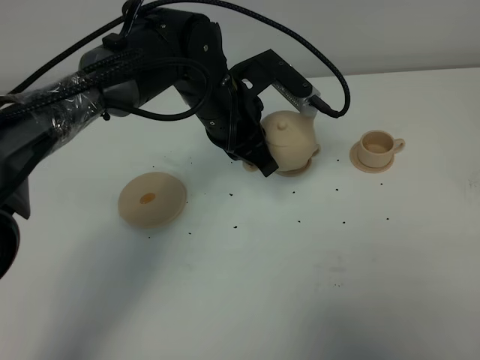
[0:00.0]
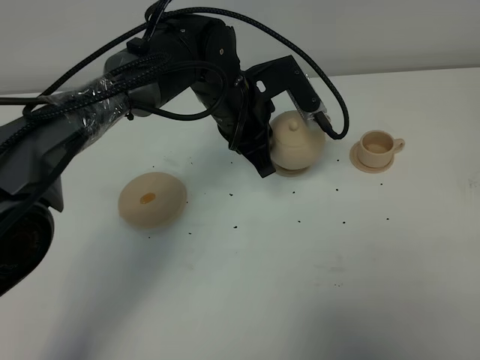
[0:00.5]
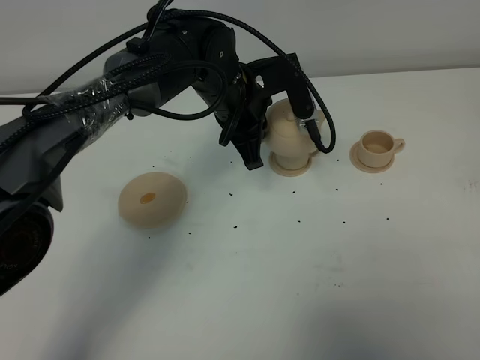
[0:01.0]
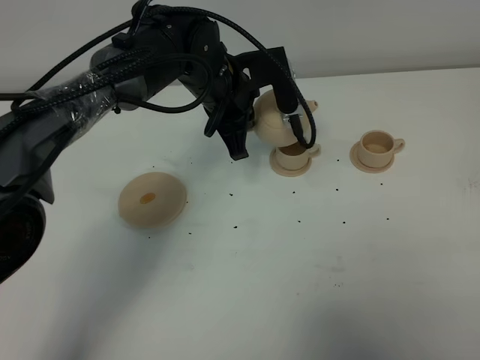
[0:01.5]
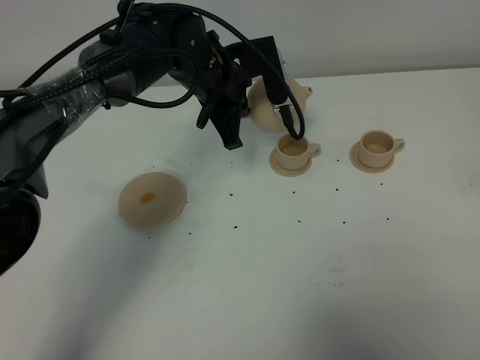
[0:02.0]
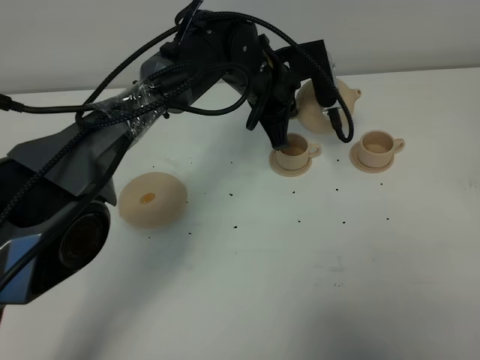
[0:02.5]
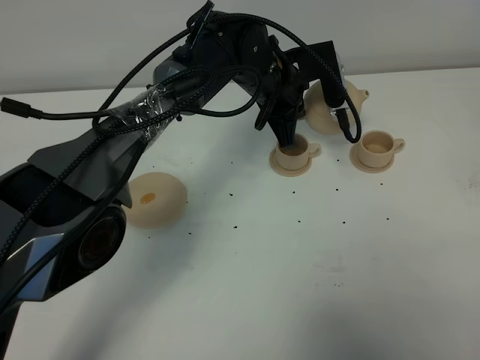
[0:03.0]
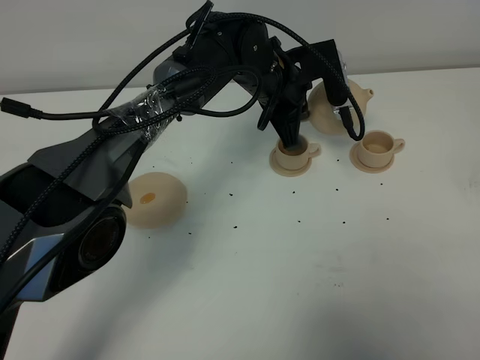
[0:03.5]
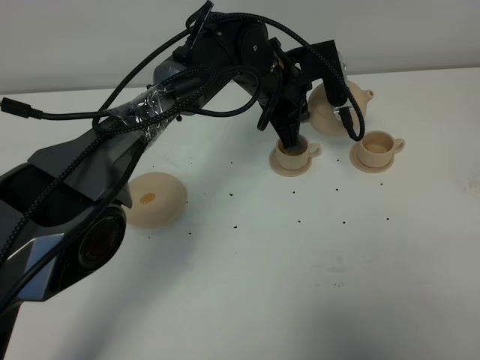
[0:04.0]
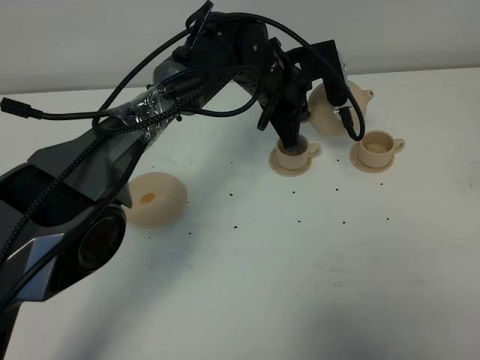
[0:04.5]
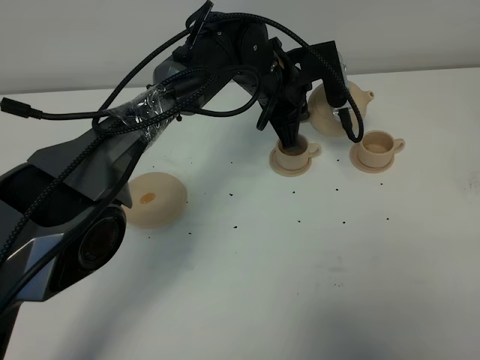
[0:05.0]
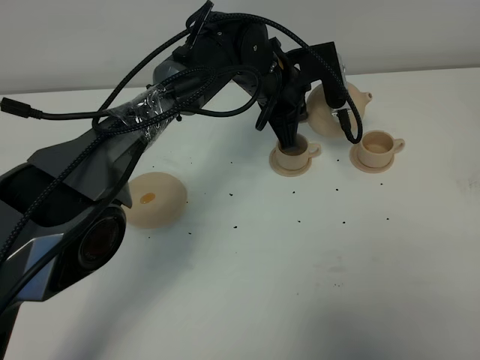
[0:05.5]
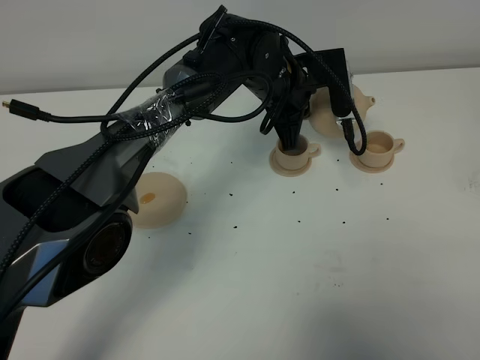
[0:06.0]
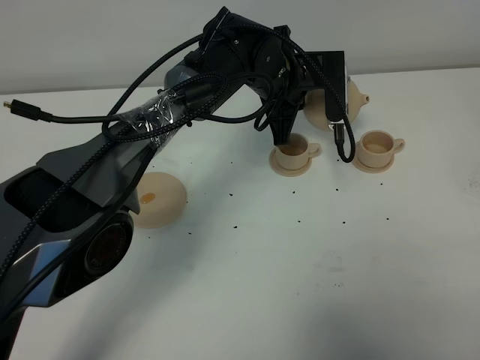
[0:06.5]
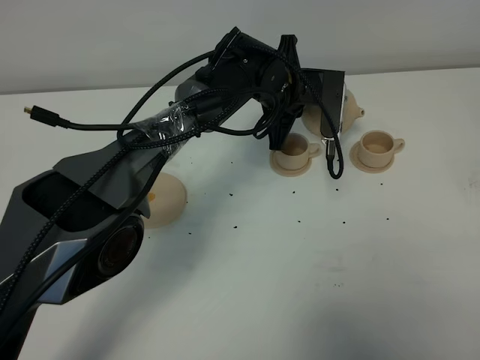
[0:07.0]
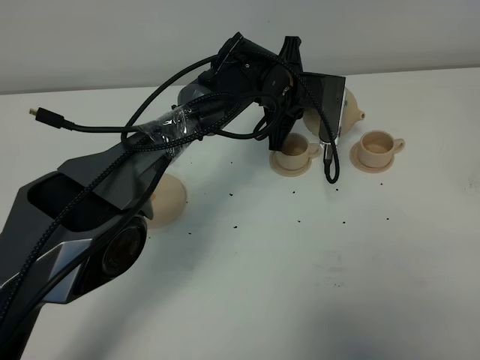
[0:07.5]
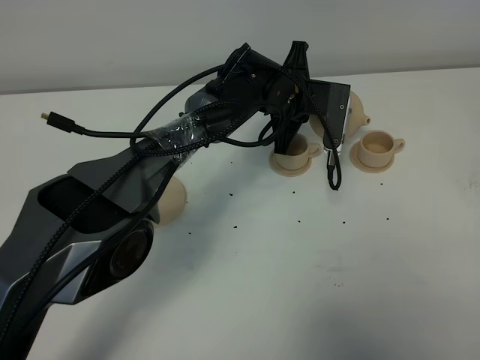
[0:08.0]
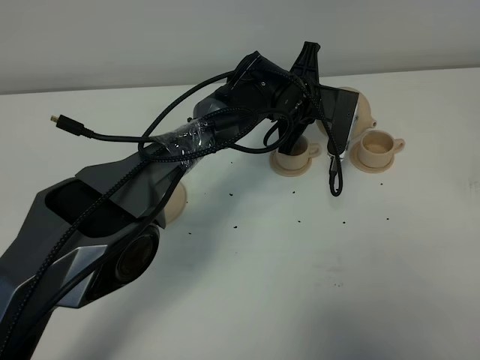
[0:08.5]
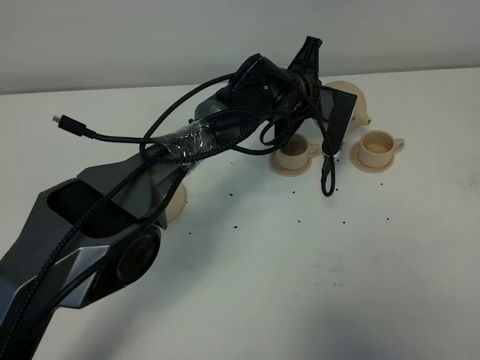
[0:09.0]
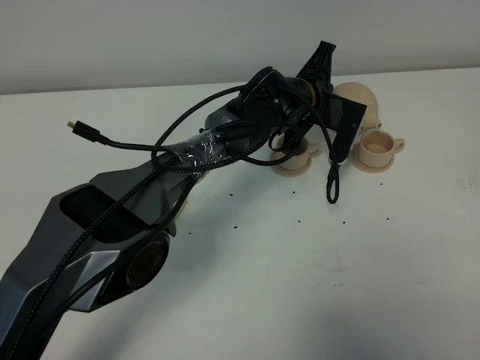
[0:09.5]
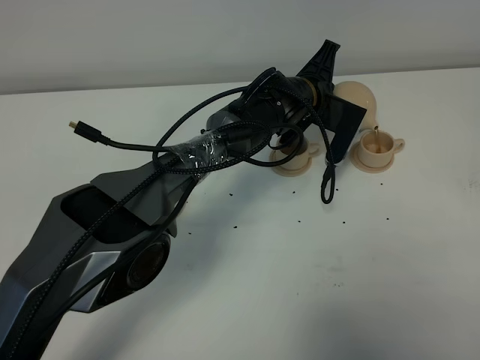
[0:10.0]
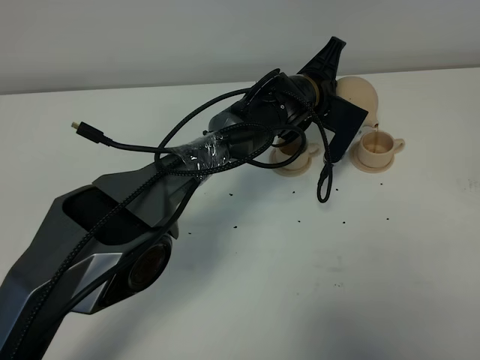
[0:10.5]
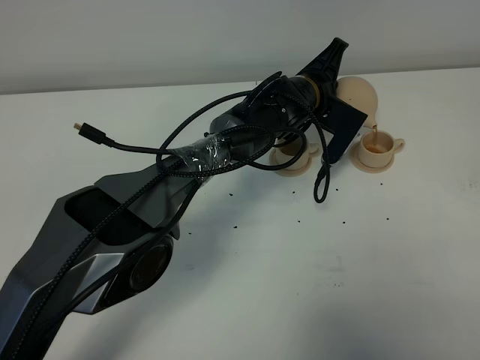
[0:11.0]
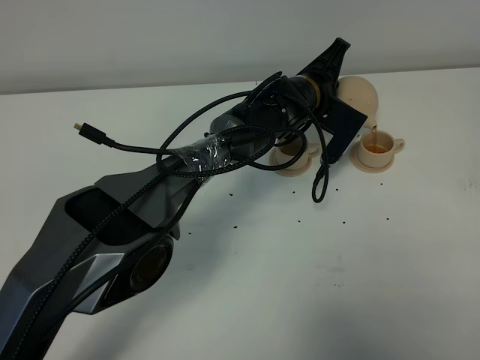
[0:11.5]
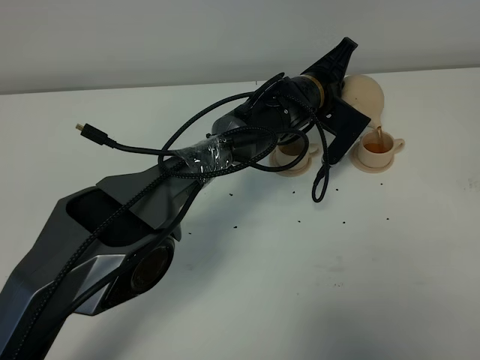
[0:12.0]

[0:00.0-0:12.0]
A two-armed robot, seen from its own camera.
Task of the whole recording: grasp the brown teapot and pour the tea into the two brown teacups one by one, put the brown teapot back in its original place.
0:00.0 to 0:02.0: The left gripper moves forward, roughly 5 cm.
0:02.0 to 0:04.0: The left gripper moves to the right, roughly 5 cm.
0:04.0 to 0:06.0: The grippers stay close to where they were, moving slightly.
0:10.0 to 0:12.0: There are only small adjustments of the grippers.

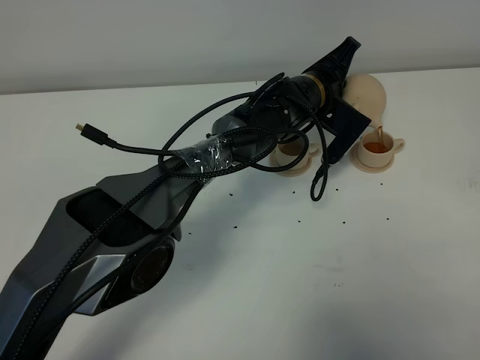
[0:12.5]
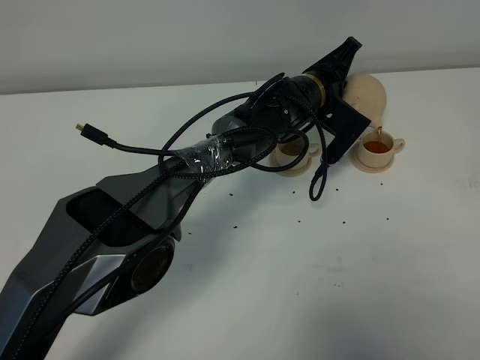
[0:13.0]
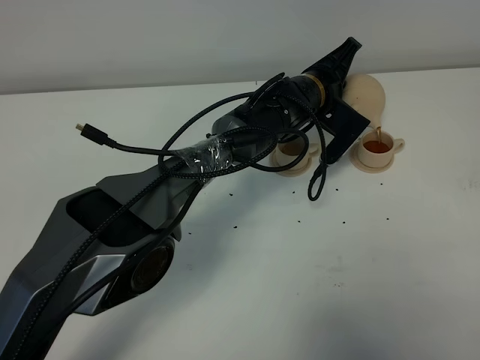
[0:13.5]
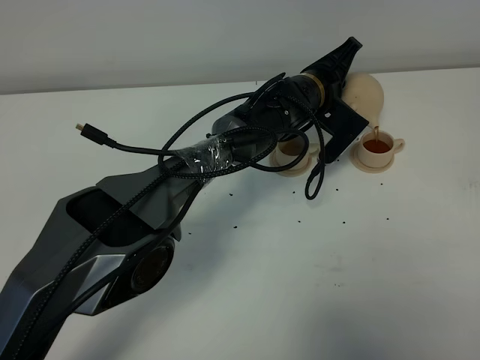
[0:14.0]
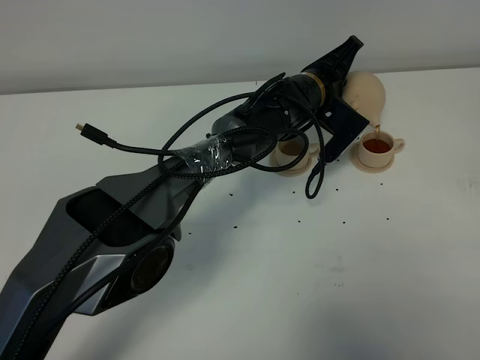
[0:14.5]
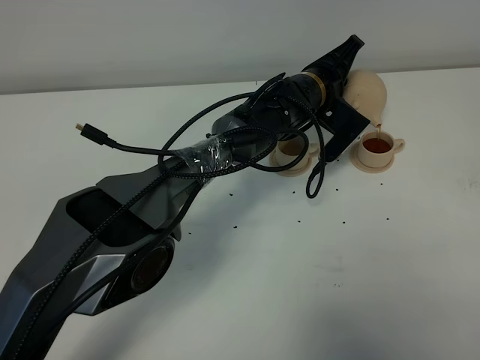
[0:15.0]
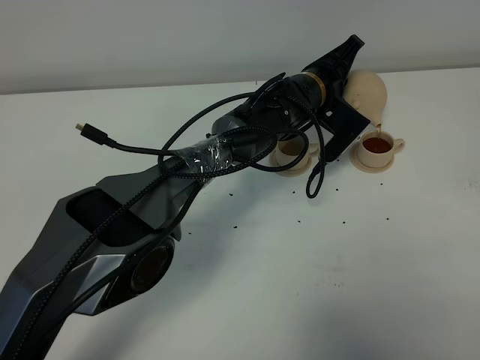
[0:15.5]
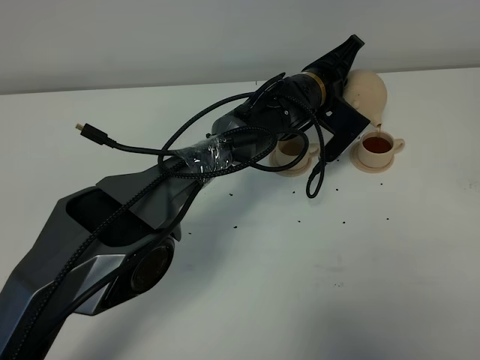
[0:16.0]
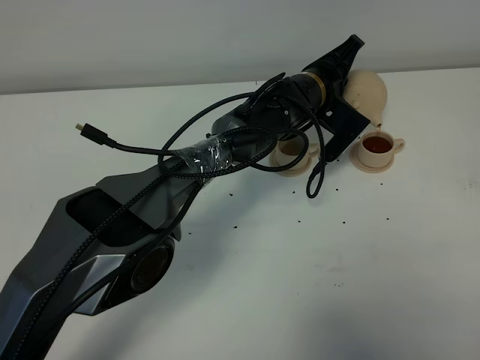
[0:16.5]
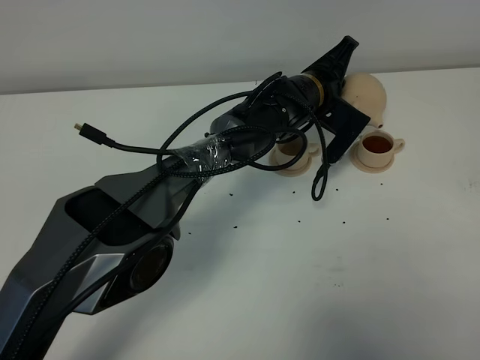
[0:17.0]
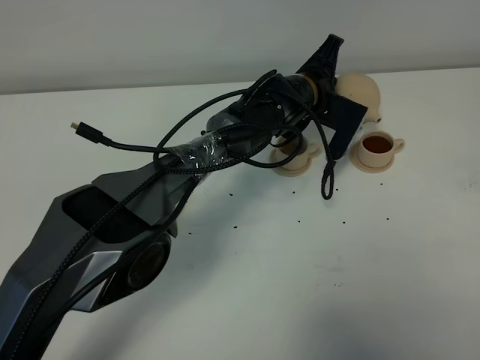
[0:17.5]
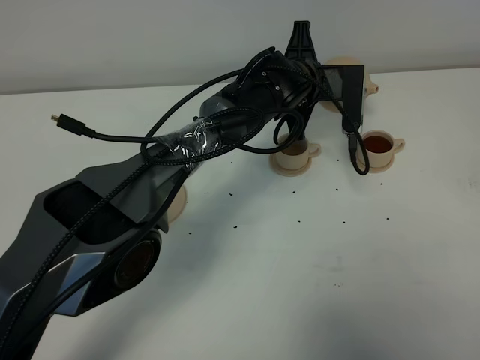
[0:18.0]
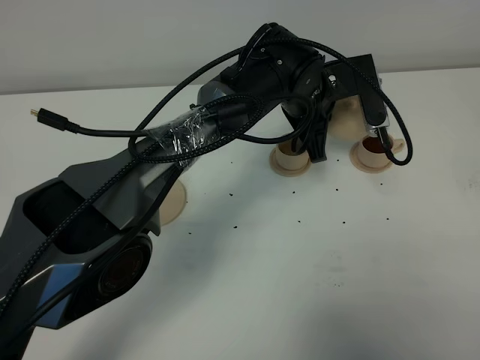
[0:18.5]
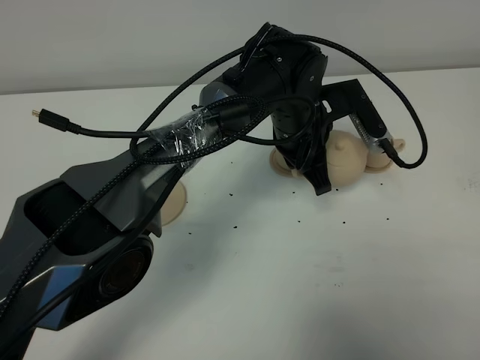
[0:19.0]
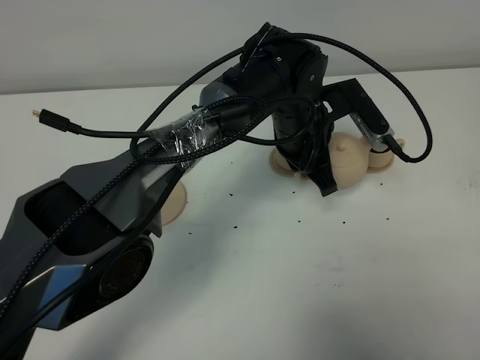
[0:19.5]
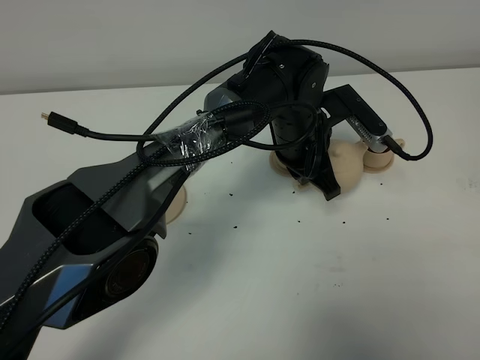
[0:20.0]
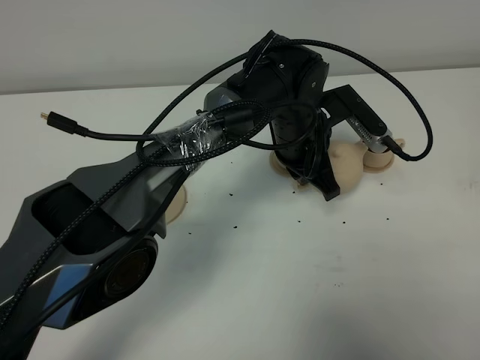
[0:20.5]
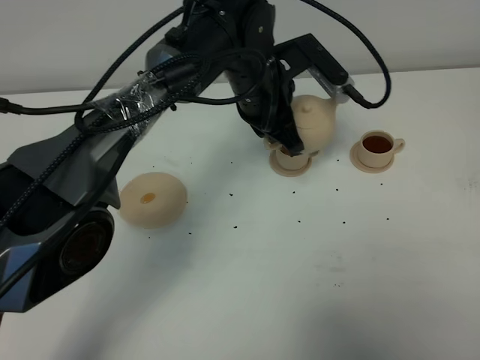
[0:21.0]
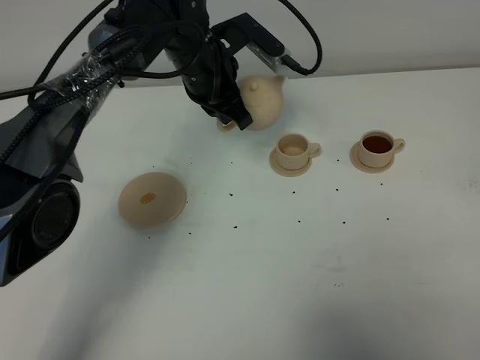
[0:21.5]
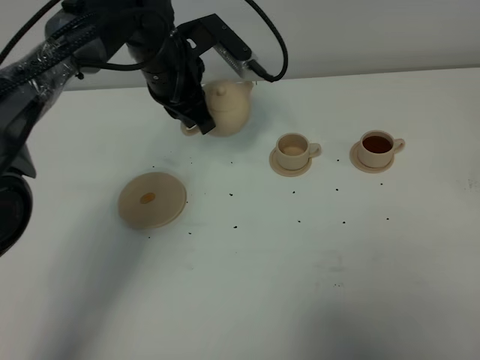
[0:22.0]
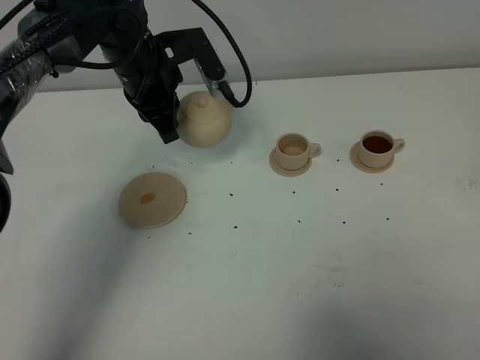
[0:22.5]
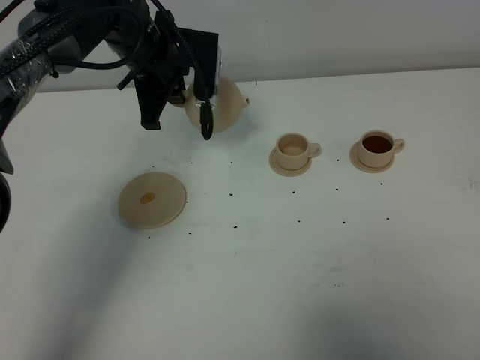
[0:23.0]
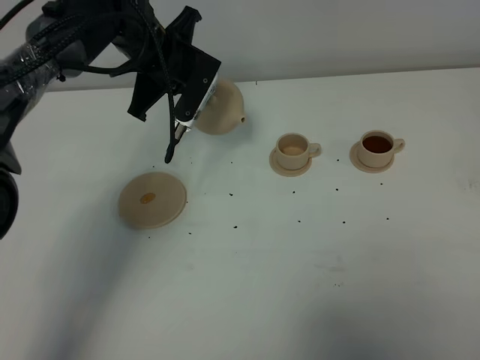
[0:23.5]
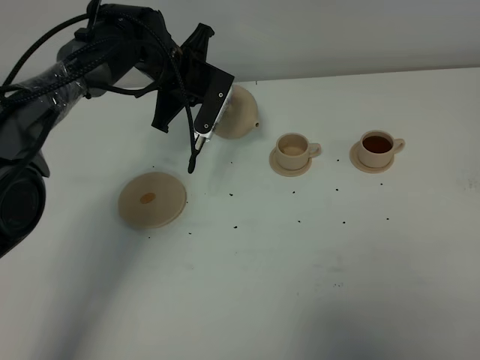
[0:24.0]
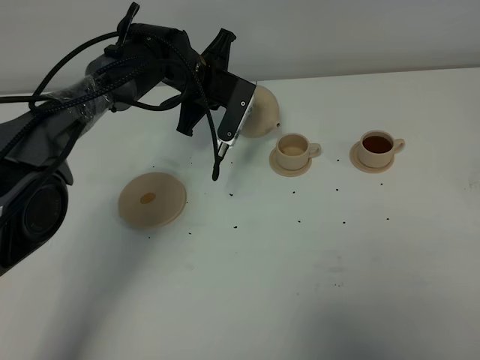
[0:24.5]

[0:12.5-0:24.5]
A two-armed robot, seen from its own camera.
Task of the whole recording: grasp the brown teapot and pour the tea into the two brown teacups one by one, put the brown teapot back in its original place.
Step, 0:12.5 to 0:17.5: Pour tea into the teacup with the left gripper.
0:12.5 to 0:16.5: Neither gripper changes place.
0:16.5 to 0:18.5: The left gripper ends up about 5 cm from where it was.
0:20.5 to 0:22.5: The left gripper moves to the left, about 20 cm.
0:22.5 to 0:24.5: The left gripper shifts approximately 10 cm downward and to the right.

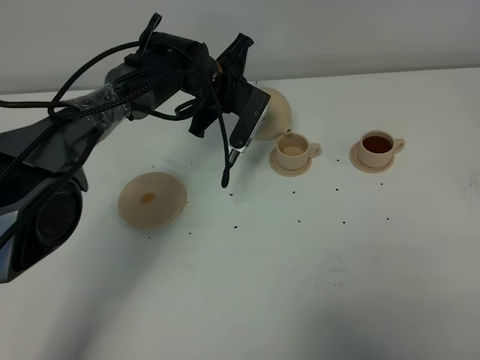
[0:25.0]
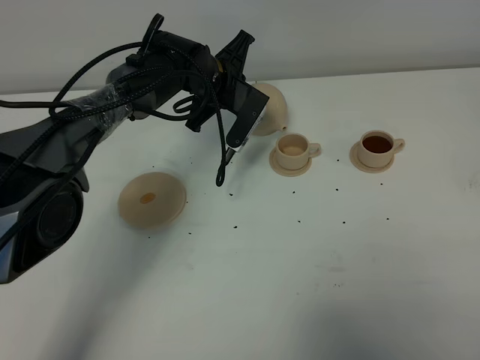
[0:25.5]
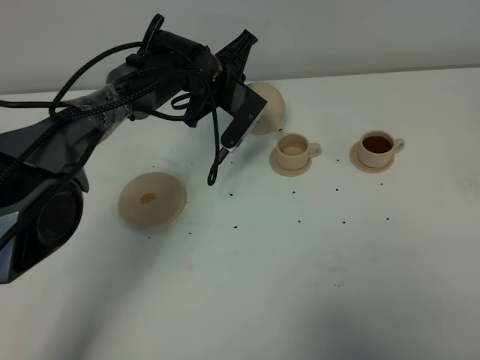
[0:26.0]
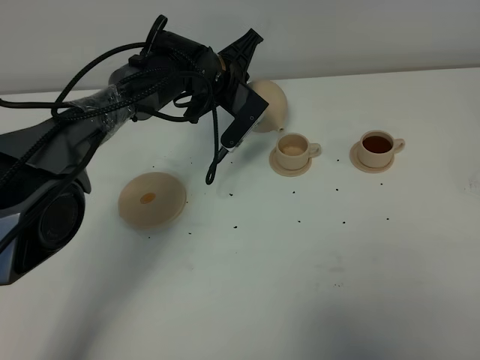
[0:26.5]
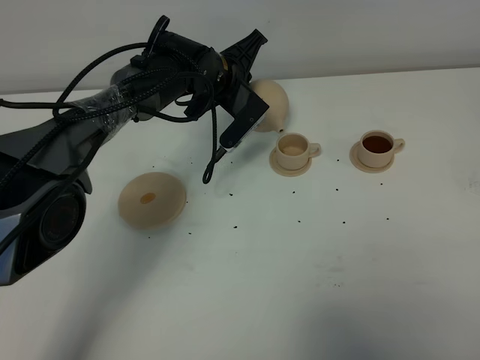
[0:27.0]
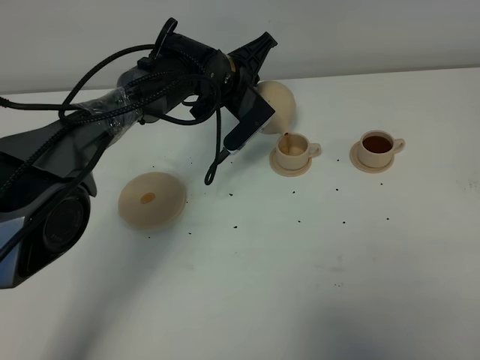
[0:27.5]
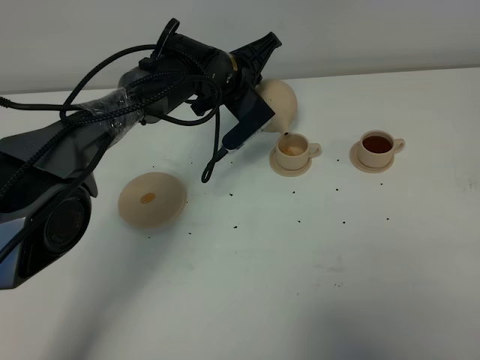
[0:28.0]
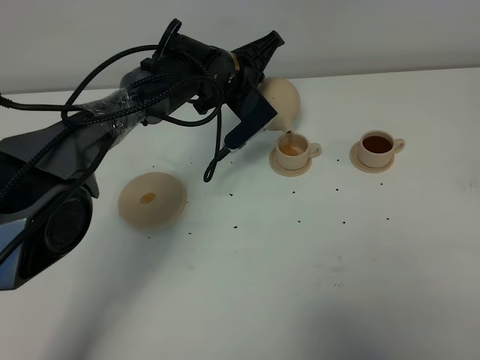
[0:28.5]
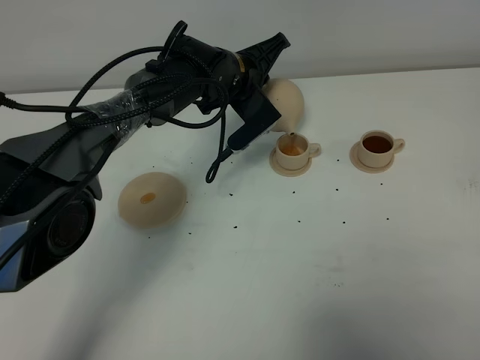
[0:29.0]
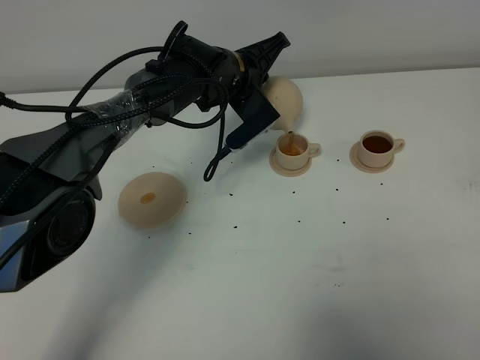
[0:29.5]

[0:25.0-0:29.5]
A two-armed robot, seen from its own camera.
Task of the whole recording: grasp the brown teapot and pour the tea into the two brown teacups one by one, put the brown teapot back in its original place.
0:25.0 to 0:27.0: The grippers make only small movements.
0:27.0 to 0:29.5: The grippers stay close to where they were, moving slightly.
